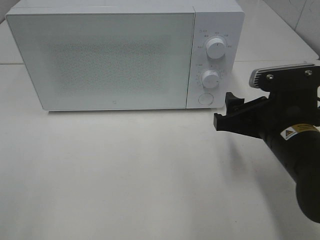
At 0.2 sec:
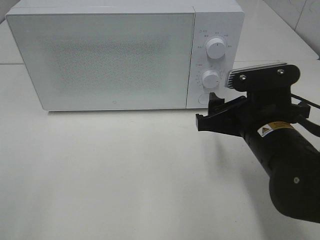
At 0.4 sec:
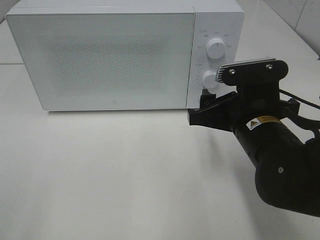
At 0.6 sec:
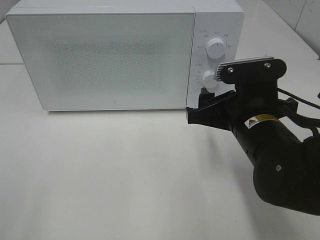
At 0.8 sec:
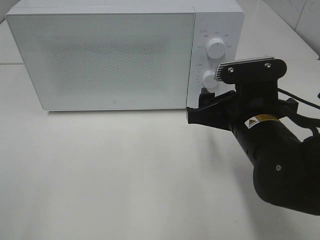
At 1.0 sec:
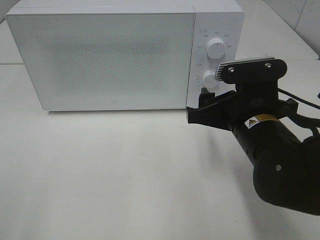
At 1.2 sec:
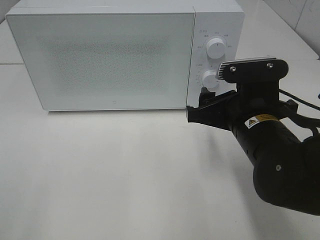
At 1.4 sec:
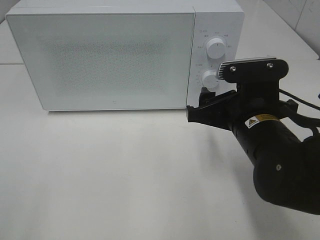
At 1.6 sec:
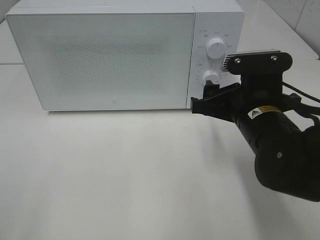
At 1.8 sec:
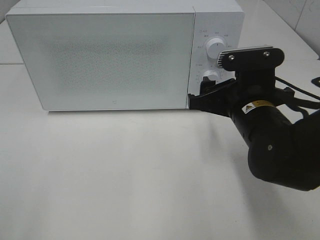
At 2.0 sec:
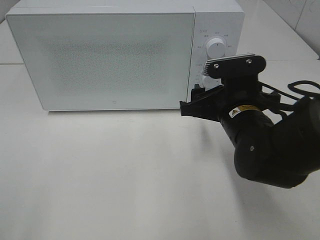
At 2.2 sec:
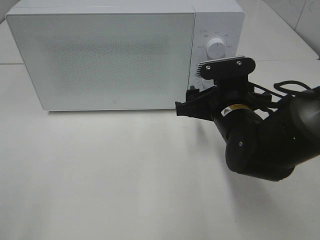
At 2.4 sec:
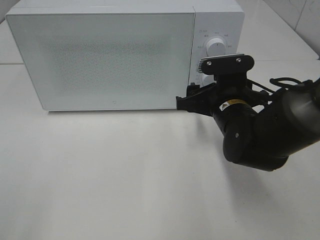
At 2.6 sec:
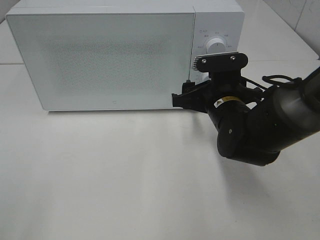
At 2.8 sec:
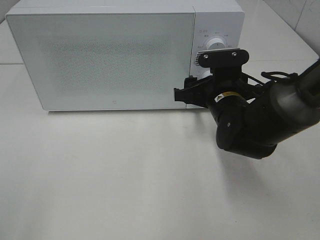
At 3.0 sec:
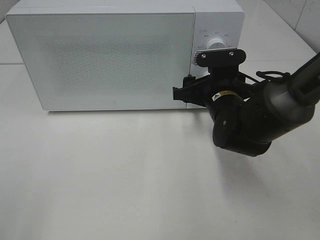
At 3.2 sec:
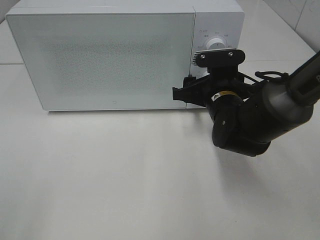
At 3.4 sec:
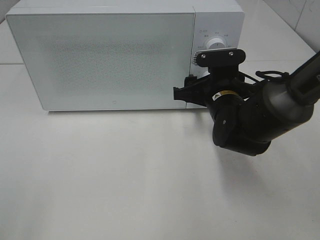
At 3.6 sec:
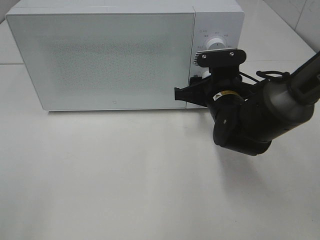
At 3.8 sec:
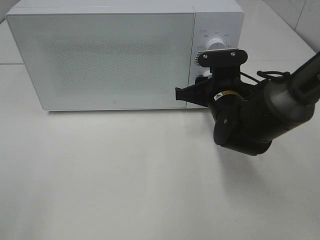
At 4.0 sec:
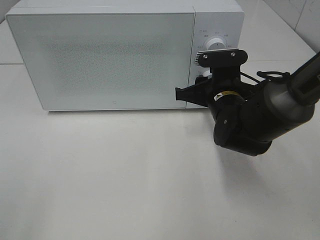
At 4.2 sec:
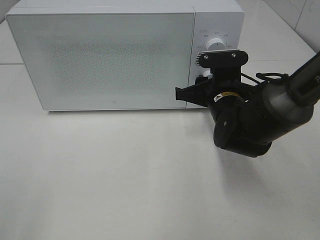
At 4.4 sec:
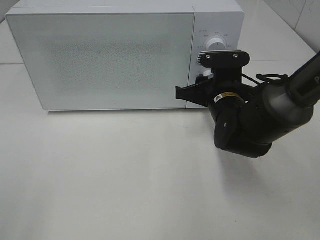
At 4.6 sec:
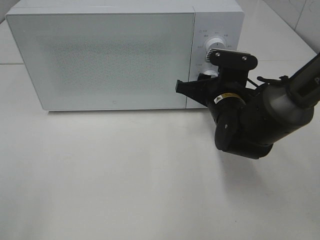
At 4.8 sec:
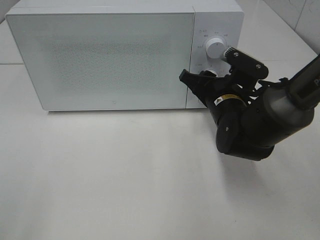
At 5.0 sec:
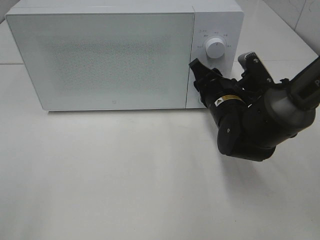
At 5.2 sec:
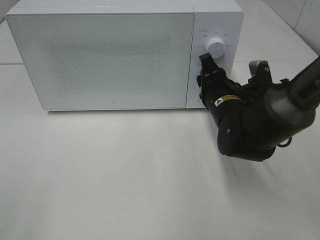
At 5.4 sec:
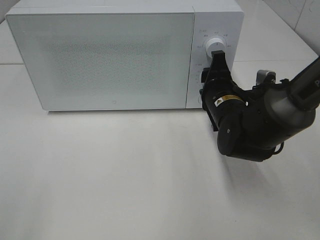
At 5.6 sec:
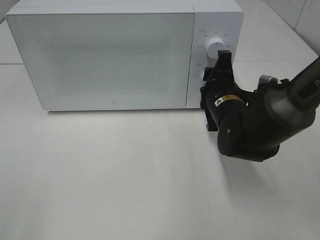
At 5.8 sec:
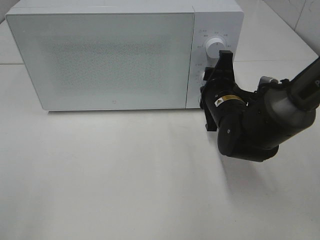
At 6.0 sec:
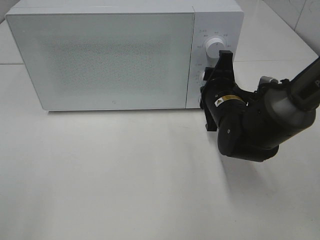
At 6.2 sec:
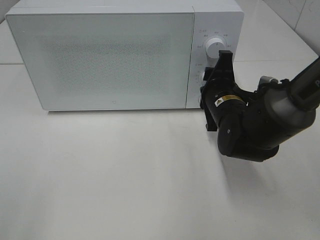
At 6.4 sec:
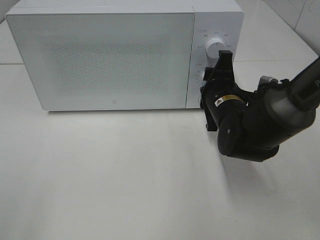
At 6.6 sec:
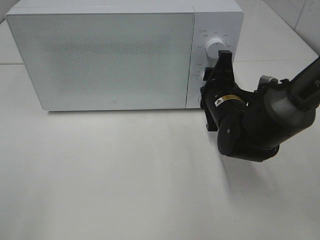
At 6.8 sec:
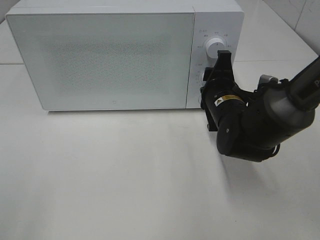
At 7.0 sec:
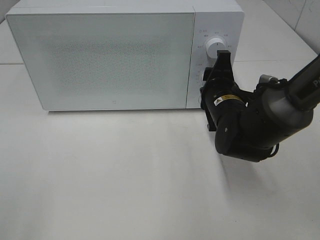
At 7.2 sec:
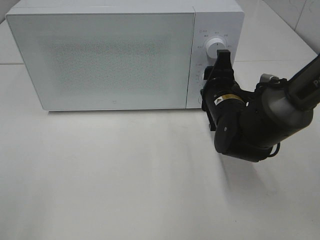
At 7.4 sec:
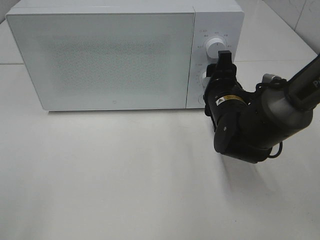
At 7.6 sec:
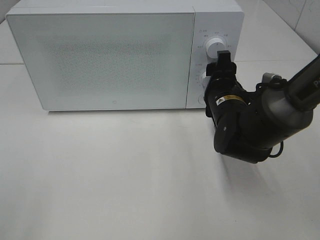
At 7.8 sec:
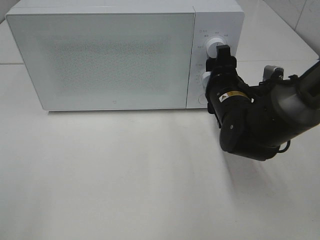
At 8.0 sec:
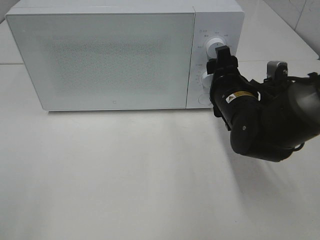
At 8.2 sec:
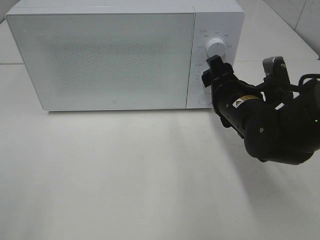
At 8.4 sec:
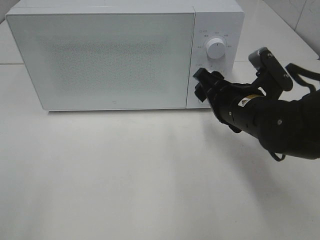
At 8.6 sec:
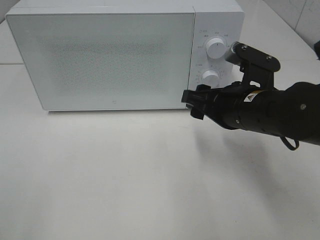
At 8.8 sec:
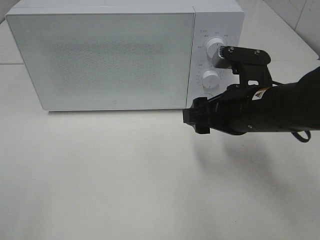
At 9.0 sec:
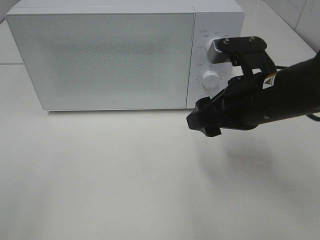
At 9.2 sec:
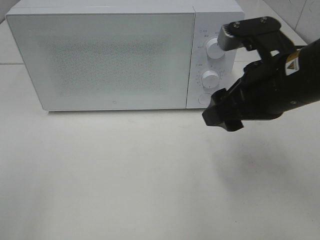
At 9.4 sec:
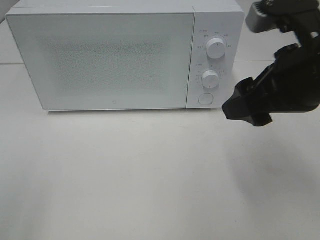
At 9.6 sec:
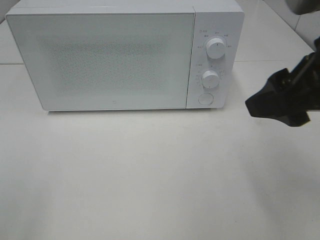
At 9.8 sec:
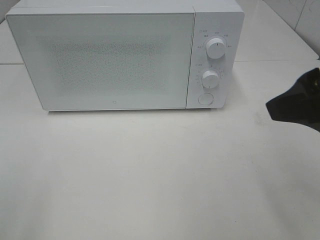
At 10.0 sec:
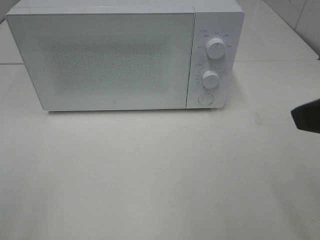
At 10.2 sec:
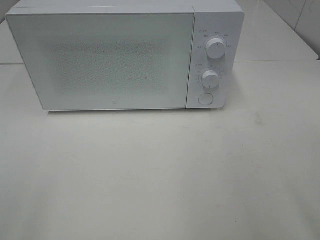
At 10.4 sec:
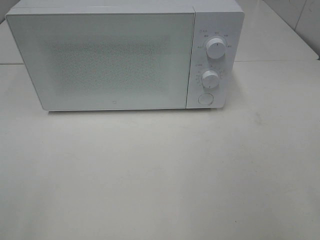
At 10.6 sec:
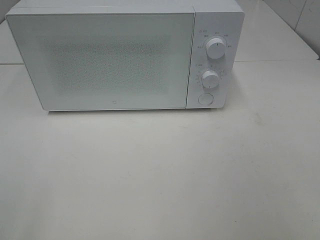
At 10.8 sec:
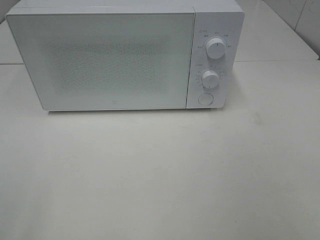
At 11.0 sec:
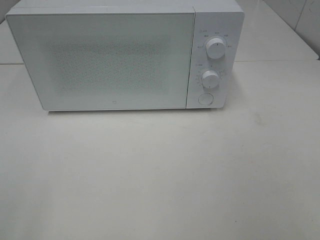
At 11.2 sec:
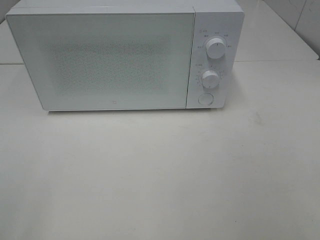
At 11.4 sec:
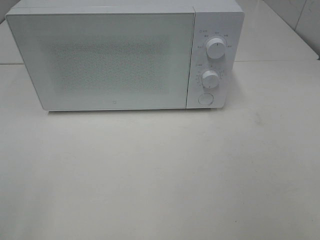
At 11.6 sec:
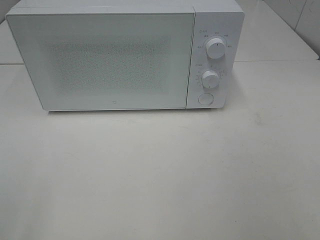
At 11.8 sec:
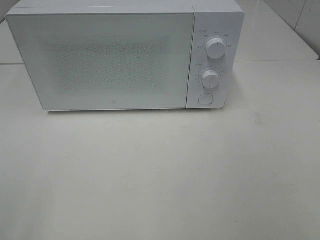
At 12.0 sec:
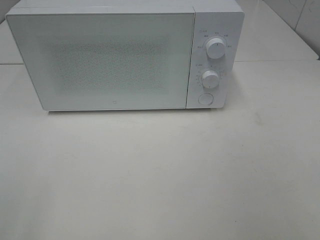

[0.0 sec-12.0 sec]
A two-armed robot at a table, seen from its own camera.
Task of the whole recording: Heat the burger.
Step, 0.0 sec to 7.2 sec: Right hand: twist timer button.
0.0 sec to 1.6 sec: The grippers move only a little.
1.6 sec to 3.0 sec: The right gripper heads forward, covering roughly 10 cm.
3.0 sec to 4.4 sec: The right gripper closes up.
6.0 sec to 7.6 sec: There are only small adjustments of the grippers.
7.6 sec to 9.0 sec: The right gripper is displaced upward and backward by approximately 10 cm.
9.0 sec to 10.4 sec: The right gripper goes some 25 cm backward, to the right and upward.

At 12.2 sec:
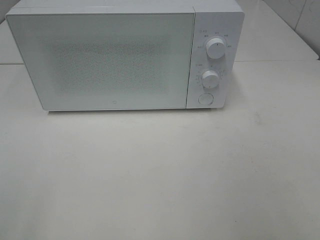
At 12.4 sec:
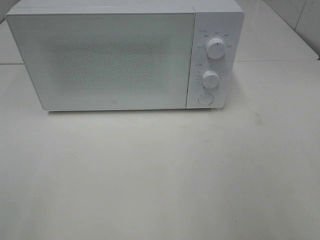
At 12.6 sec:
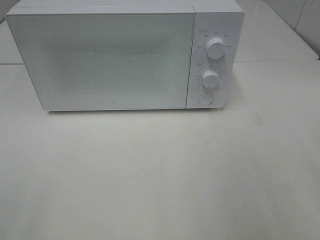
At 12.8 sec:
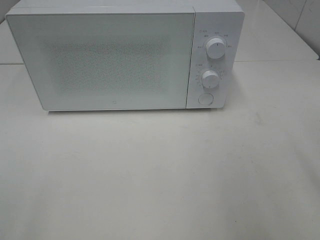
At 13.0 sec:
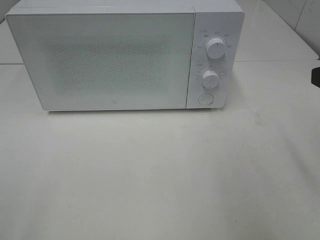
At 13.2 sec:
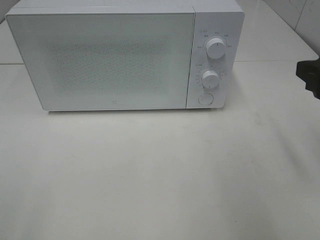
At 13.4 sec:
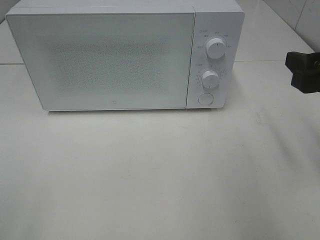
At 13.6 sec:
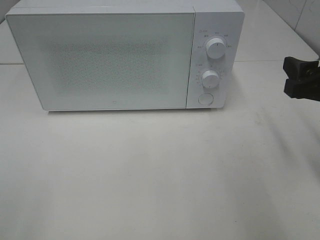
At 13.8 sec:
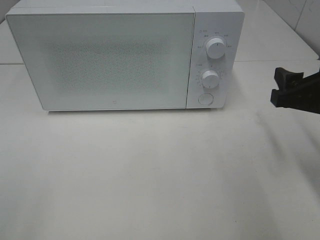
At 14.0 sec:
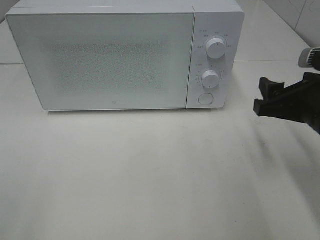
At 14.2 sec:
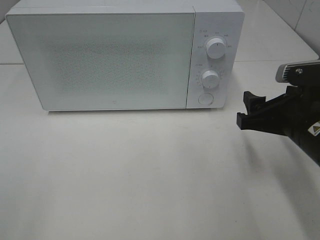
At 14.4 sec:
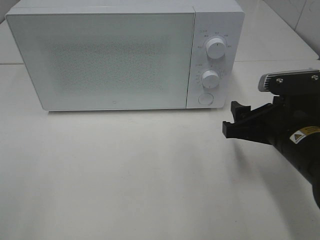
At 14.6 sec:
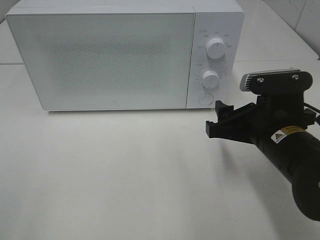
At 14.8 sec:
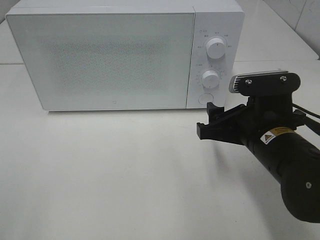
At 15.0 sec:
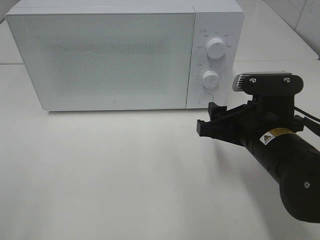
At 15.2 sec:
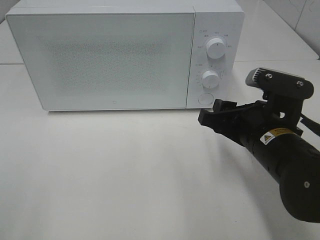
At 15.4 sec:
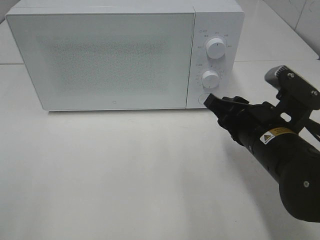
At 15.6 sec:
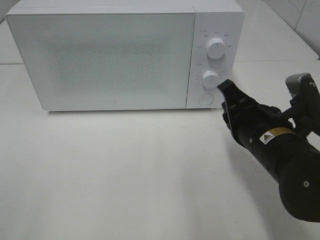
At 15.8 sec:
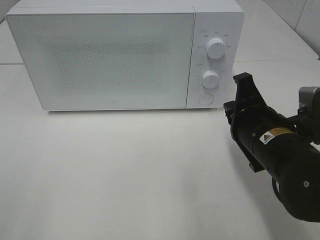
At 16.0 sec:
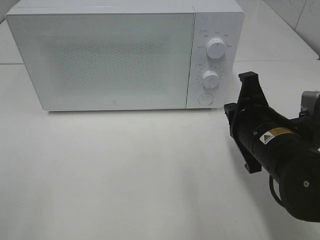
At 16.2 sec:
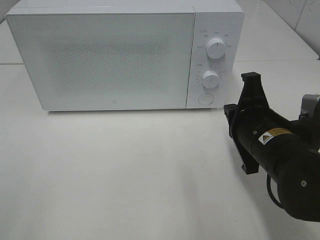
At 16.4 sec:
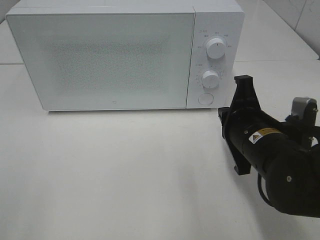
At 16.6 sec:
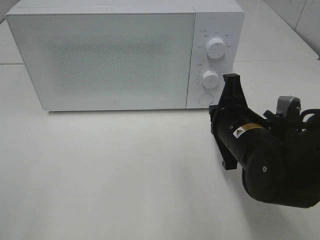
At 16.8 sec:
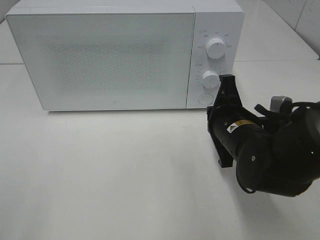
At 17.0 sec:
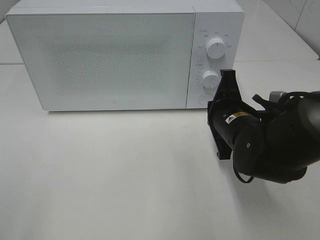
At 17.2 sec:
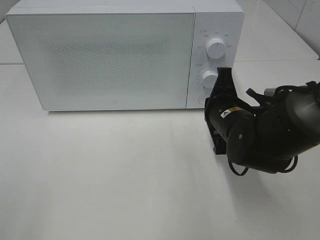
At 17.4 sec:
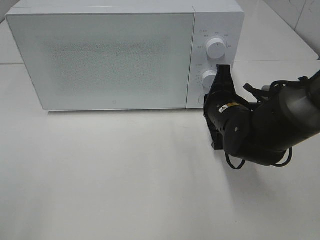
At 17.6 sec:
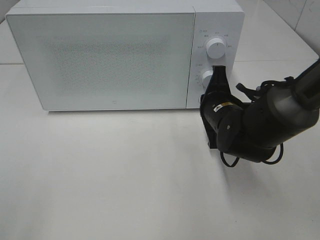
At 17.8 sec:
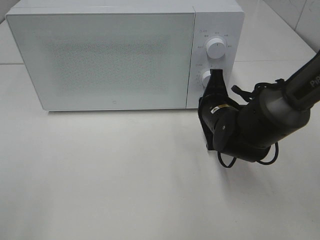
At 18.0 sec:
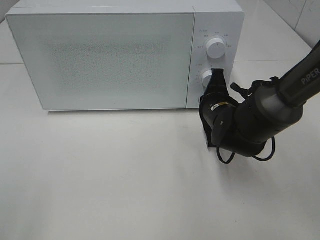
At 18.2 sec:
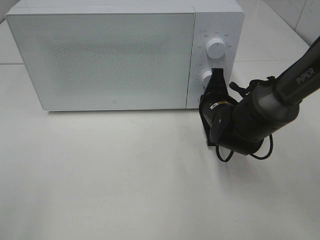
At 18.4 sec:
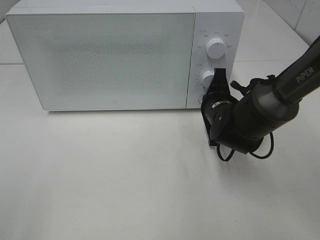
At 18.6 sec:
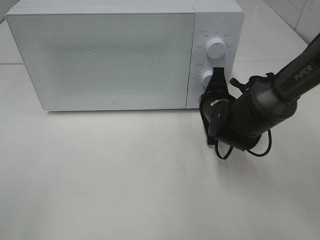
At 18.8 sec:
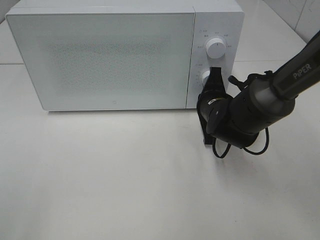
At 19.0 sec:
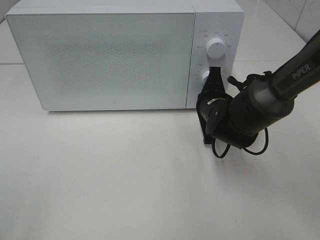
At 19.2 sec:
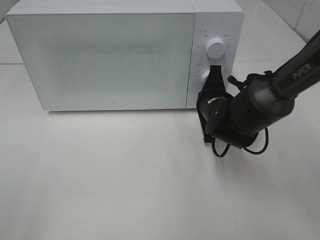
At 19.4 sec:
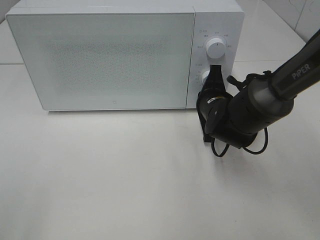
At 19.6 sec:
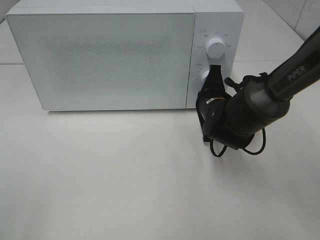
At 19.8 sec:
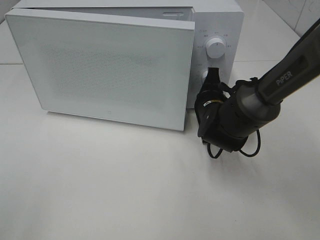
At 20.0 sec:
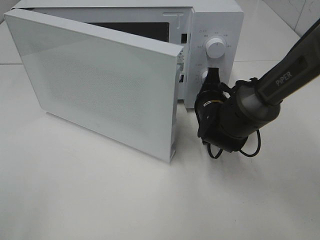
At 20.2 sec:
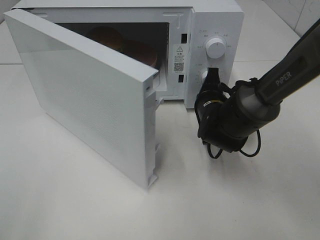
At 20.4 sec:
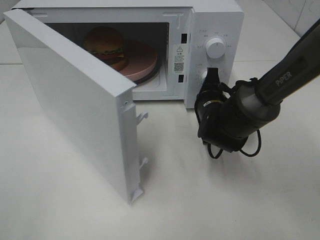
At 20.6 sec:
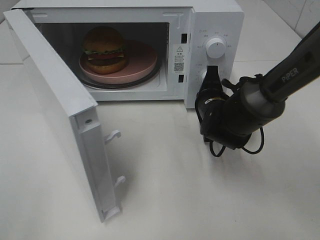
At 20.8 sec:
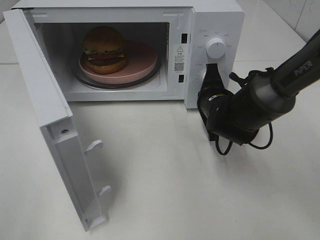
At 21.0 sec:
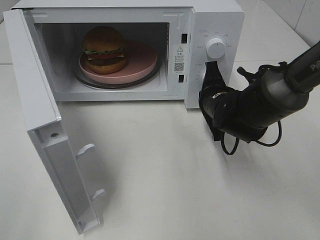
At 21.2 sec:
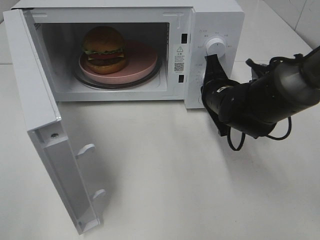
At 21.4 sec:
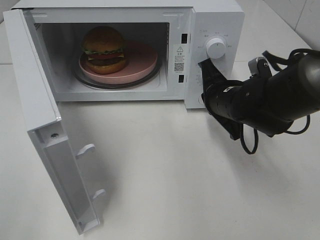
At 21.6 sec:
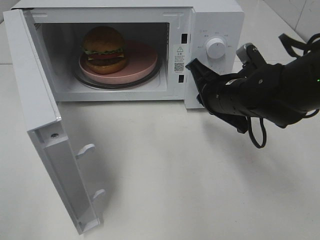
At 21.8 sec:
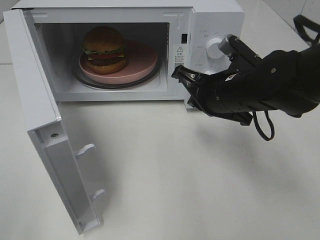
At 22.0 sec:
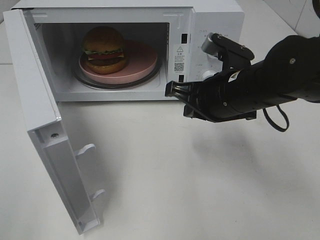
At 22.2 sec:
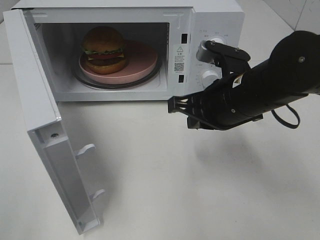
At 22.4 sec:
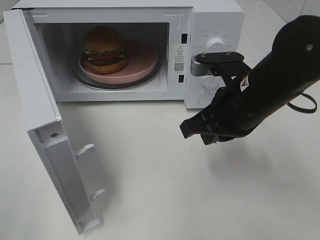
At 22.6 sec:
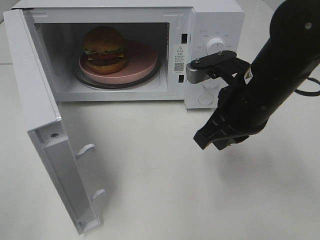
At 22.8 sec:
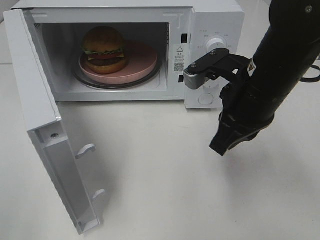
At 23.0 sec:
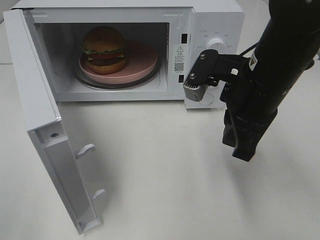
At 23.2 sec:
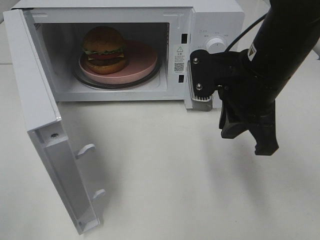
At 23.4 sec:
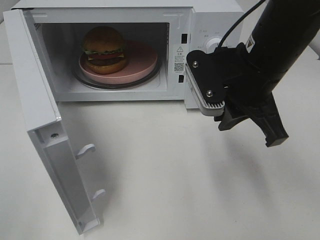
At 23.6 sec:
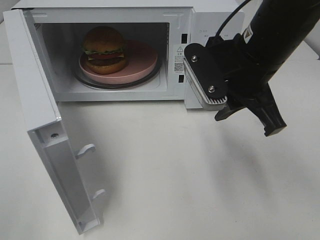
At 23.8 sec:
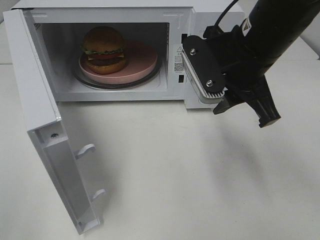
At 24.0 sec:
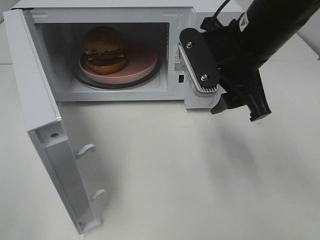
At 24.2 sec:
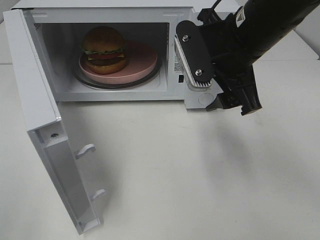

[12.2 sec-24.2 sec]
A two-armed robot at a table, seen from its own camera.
Task of the whole recording: Heat the burger.
Step, 12.2 sec to 21.0 sec: Right hand: press the switch.
12.2 sec to 13.8 sec: The right gripper heads forward and downward, covering approximately 20 cm.
13.8 sec to 15.2 sec: The right gripper goes about 10 cm to the left.
15.2 sec to 16.6 sec: The right gripper closes up.
16.6 sec to 18.2 sec: The right gripper moves forward, approximately 10 cm.
18.2 sec to 19.8 sec: The grippers stay close to where they were, moving slightly.
21.2 sec to 22.6 sec: The right gripper travels upward and backward by roughly 10 cm.
22.6 sec to 24.2 sec: The right gripper moves upward, about 5 cm, and opens.
